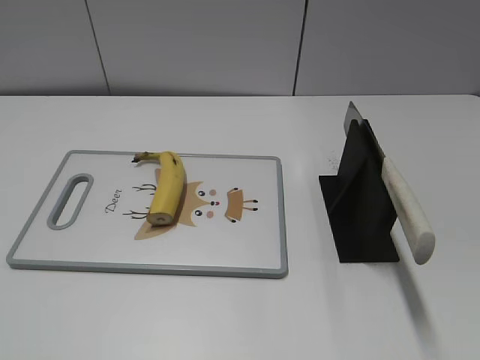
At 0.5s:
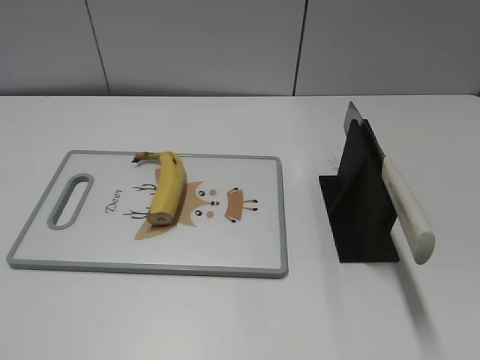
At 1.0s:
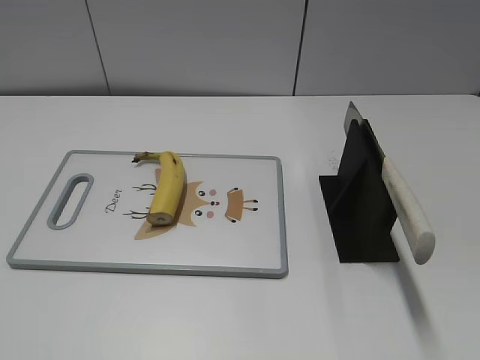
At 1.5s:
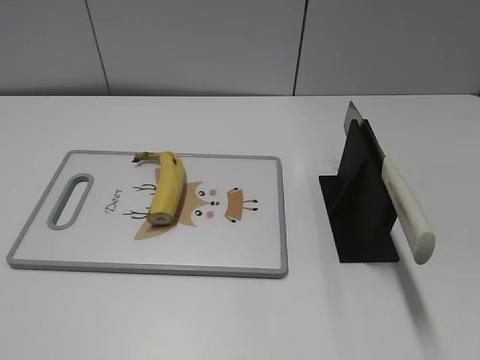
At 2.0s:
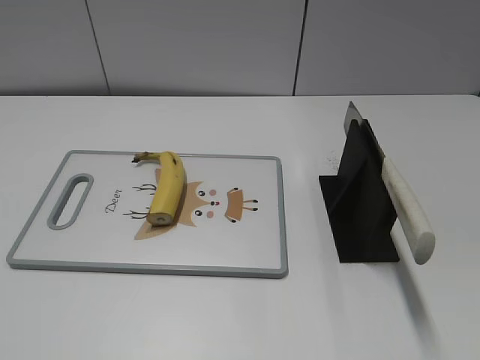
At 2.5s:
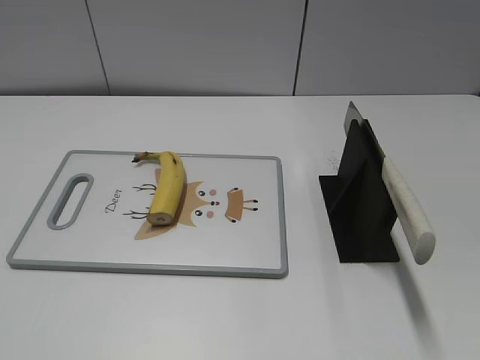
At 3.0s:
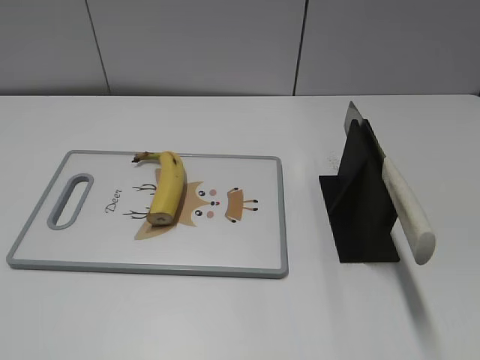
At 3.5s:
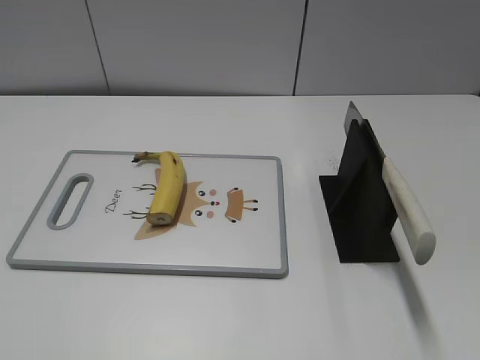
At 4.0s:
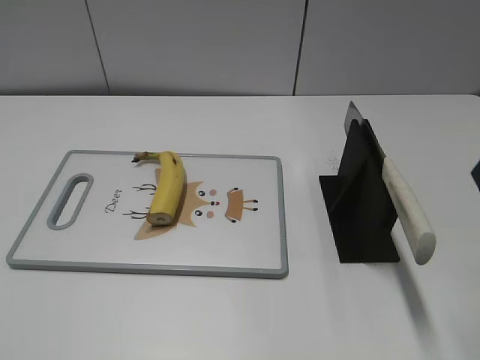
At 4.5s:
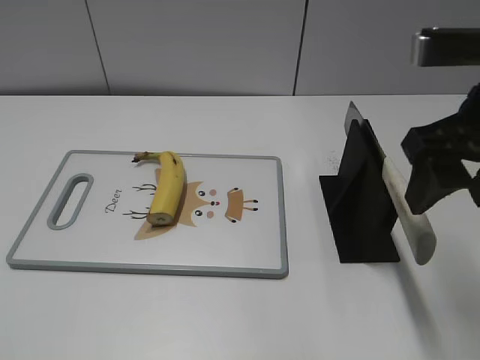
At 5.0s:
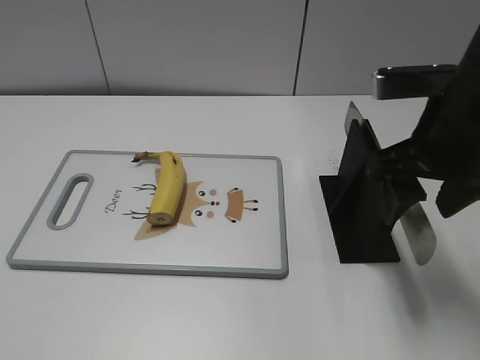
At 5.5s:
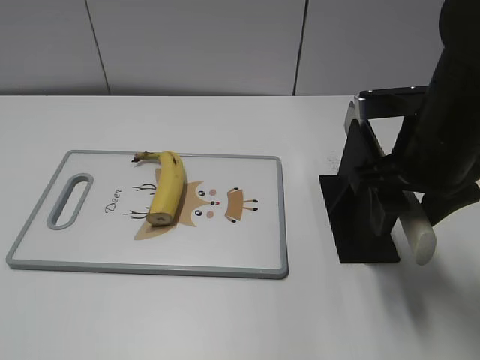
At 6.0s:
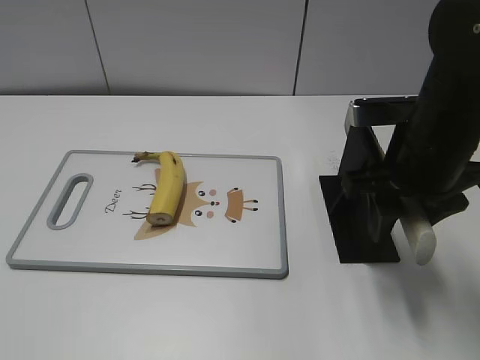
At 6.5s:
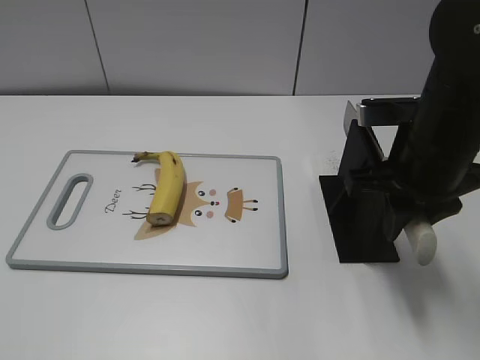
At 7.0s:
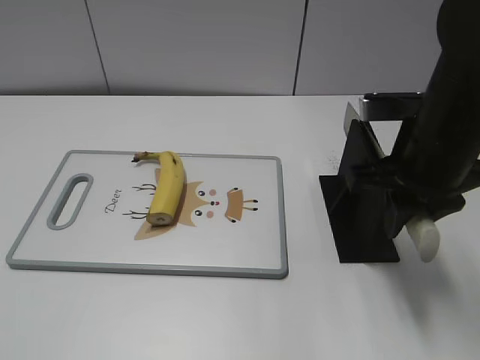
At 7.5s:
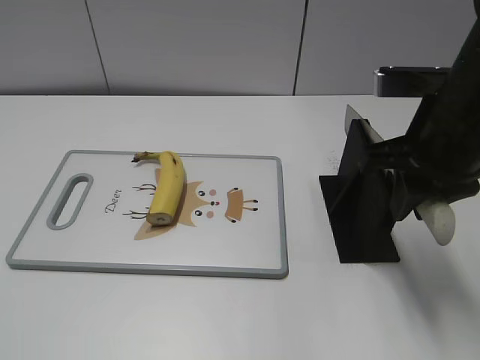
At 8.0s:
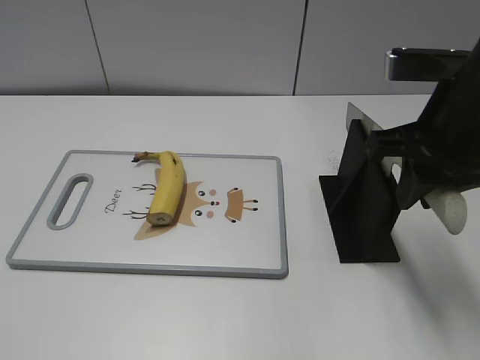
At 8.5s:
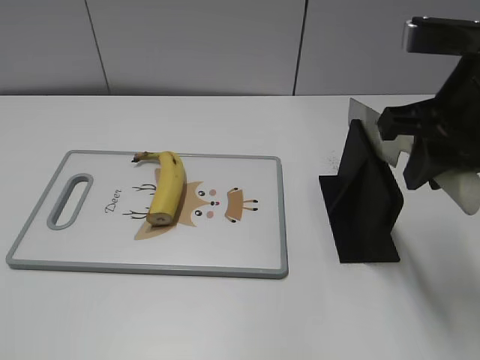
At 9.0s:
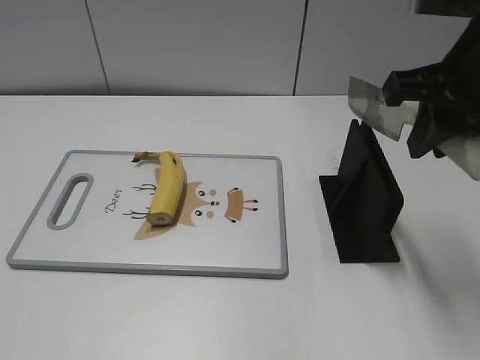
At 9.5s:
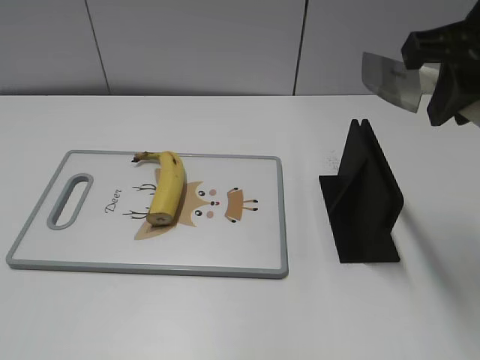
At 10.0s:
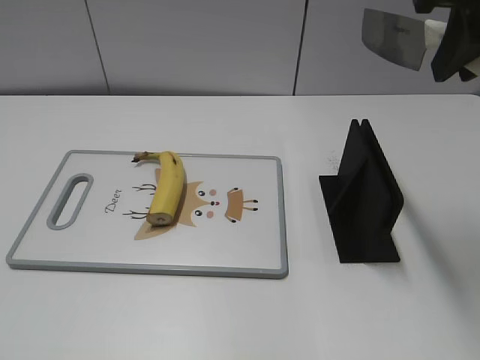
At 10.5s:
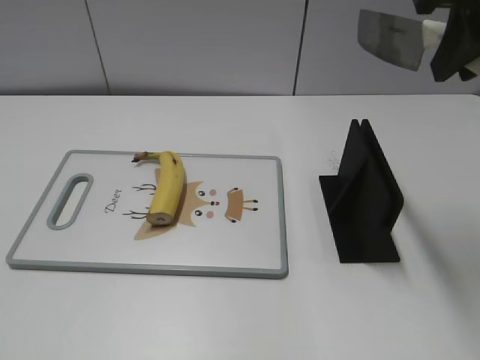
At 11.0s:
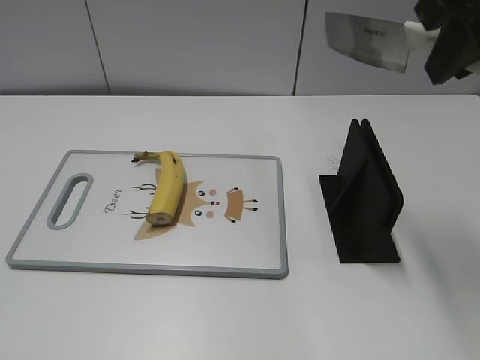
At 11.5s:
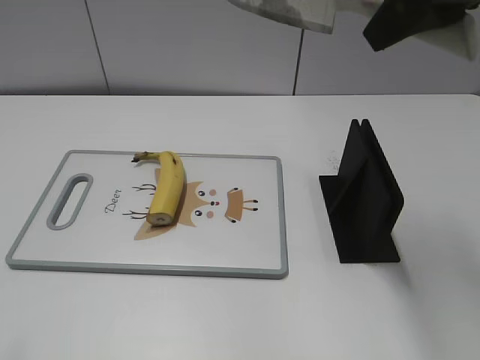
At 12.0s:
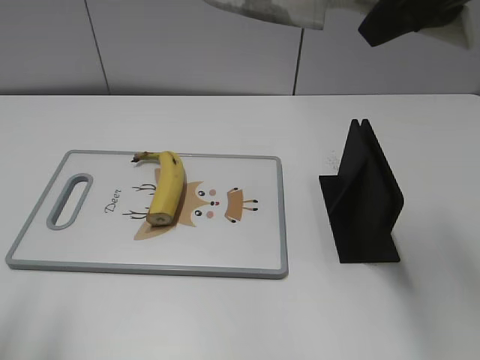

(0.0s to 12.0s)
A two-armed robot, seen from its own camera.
Task of the whole recording: cut banana.
Step, 0.0s - 8.0s: Grab the knife handle with your right hand.
4.0s - 6.0s: The right gripper is displaced downward, forward and to the left by approximately 15 cm, and closes up.
6.0s - 8.0s: The right gripper changes place by roughly 5 cm, and closes its fingers.
8.0s - 10.0s: The right gripper heads upward, covering approximately 10 cm.
10.0s - 12.0s: The left gripper heads forward and upward, covering approximately 15 cm.

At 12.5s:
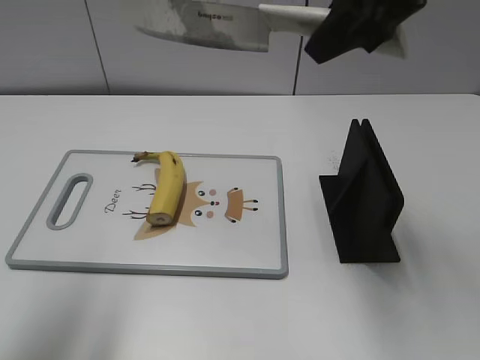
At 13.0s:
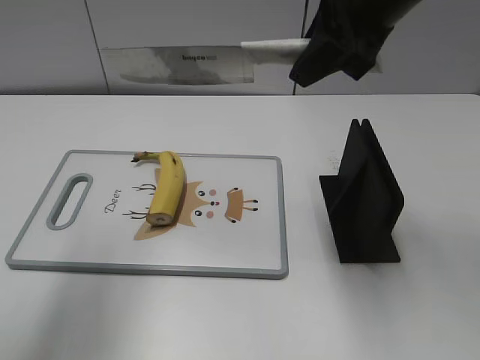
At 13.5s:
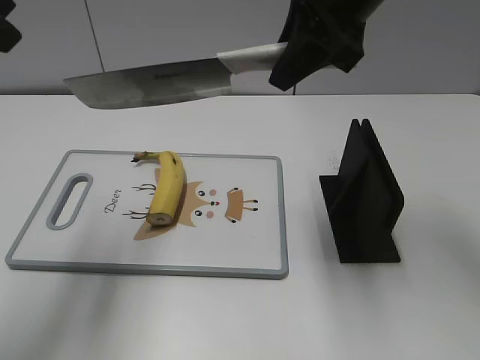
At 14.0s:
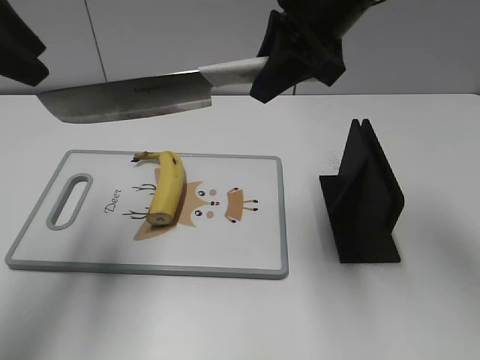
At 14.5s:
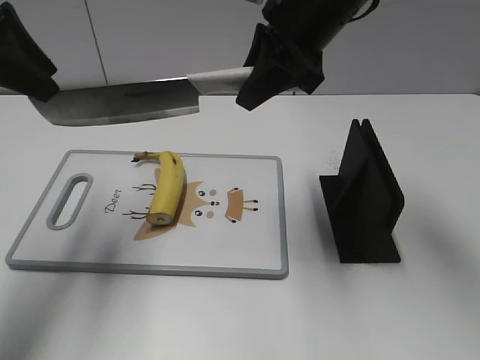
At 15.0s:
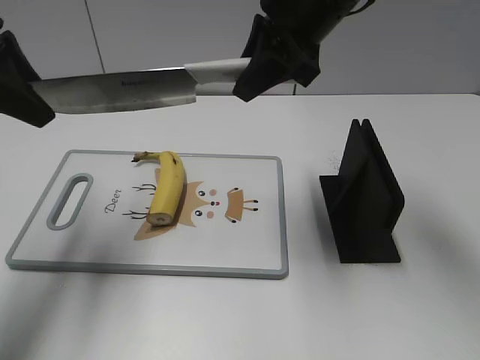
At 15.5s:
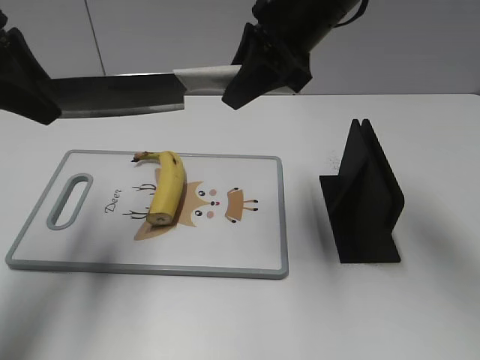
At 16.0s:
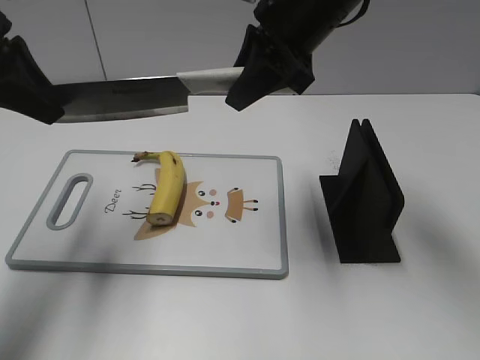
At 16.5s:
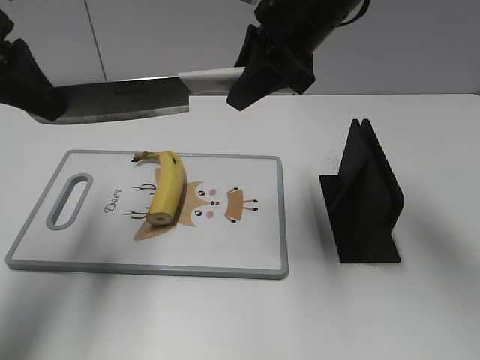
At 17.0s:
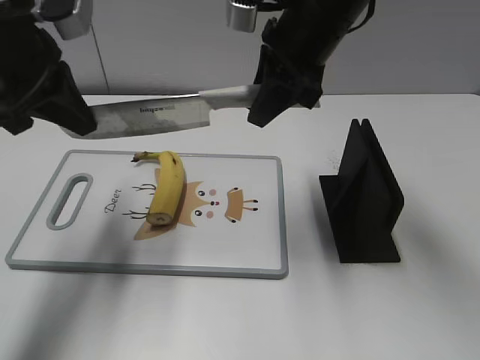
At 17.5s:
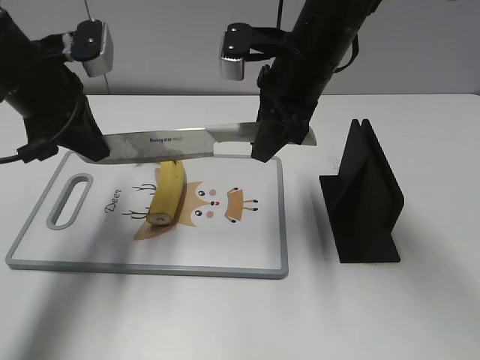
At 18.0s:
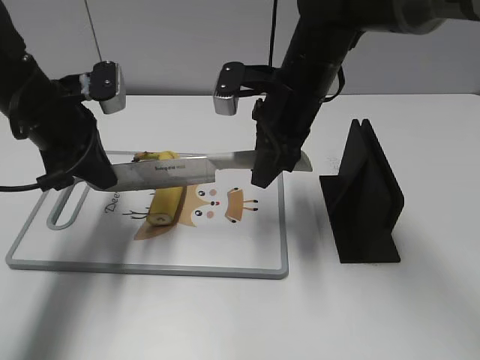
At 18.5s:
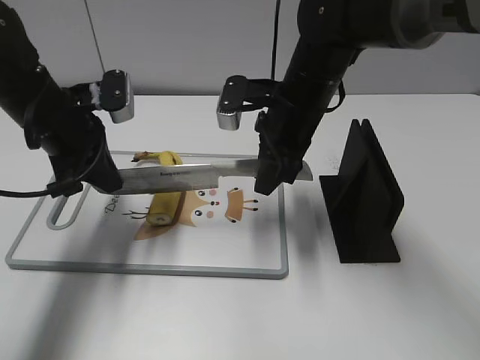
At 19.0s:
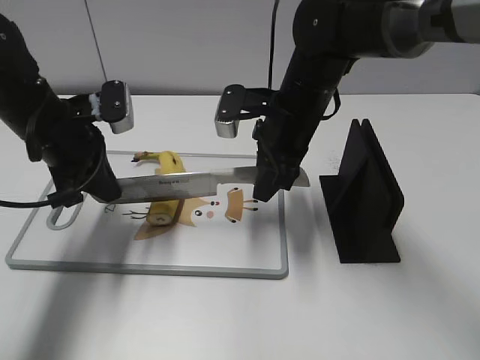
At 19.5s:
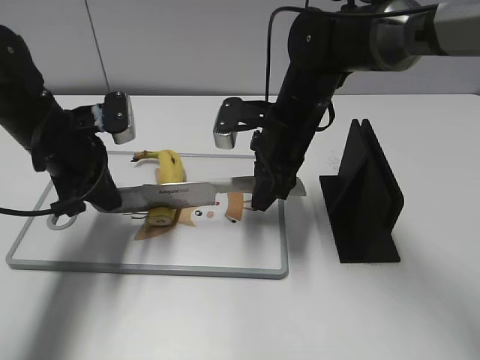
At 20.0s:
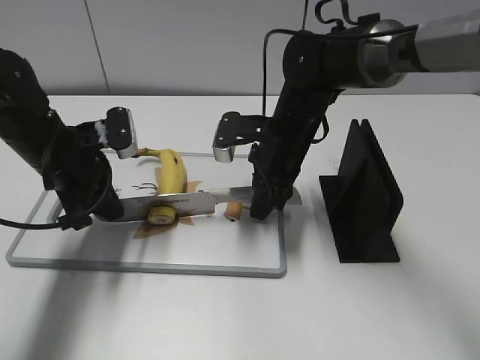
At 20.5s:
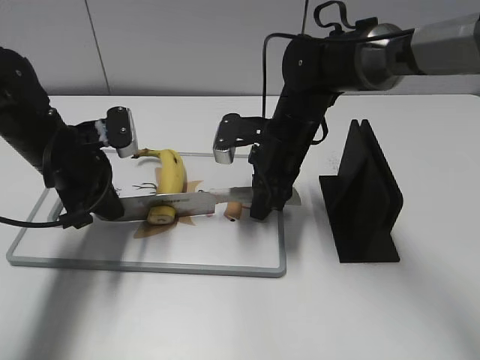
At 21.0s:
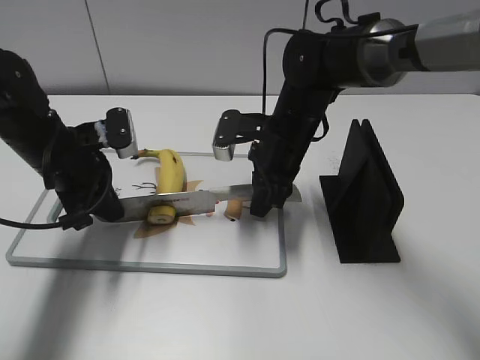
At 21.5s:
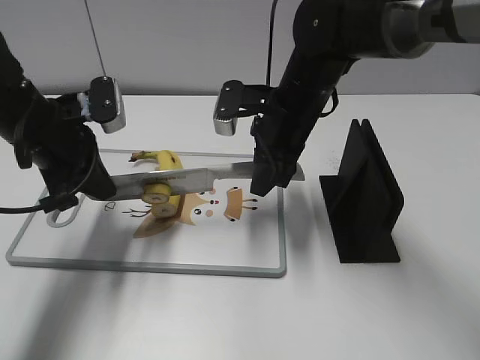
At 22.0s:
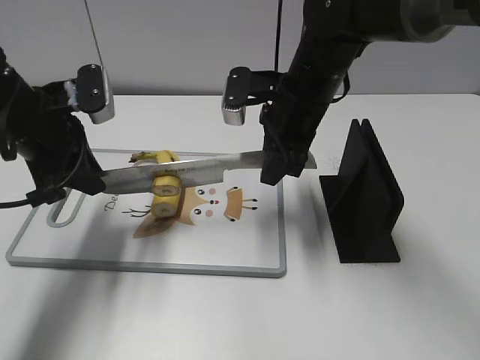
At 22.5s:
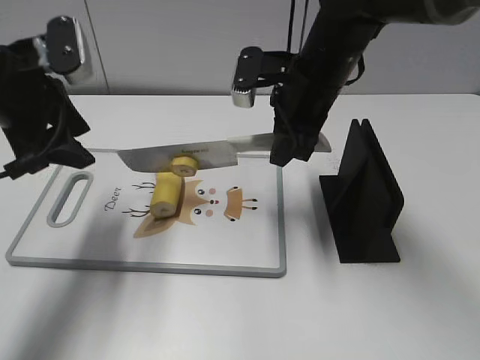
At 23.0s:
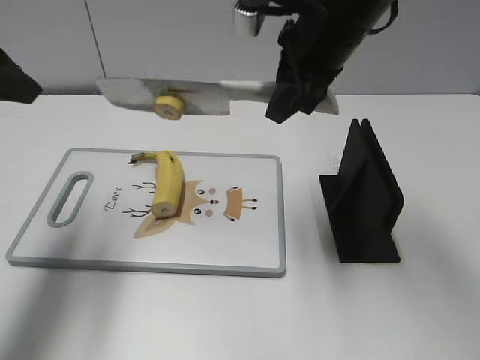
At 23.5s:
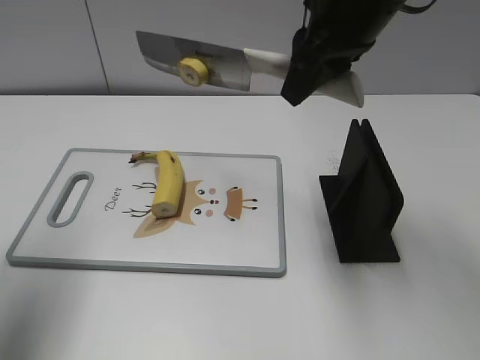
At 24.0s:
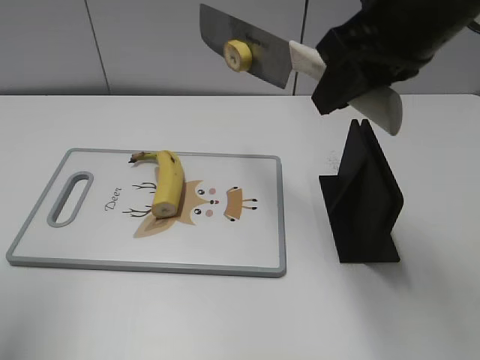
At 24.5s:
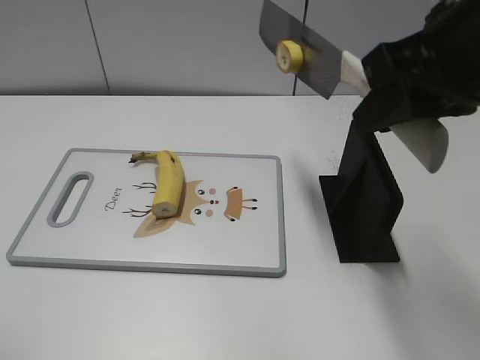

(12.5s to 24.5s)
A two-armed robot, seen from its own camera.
Task of the whole recording: cut banana.
Step, 12.5s - 20.5s: Lift the knife with your right hand.
12.5s - 14.5s: The right gripper moves downward, forward and to the left, some 10 cm, while the left gripper shifts about 15 cm forward.
14.5s - 16.5s: The left gripper closes.
16.5s - 18.5s: The two grippers go about 10 cm downward.
18.5s - 20.5s: Both grippers move downward, about 5 cm.
20.5s - 22.5s: Both grippers move upward, roughly 10 cm. The left gripper opens up.
22.5s - 24.5s: The right gripper is displaced backward, upward and to the right by approximately 20 cm. The left gripper travels backward and upward by some 25 cm.

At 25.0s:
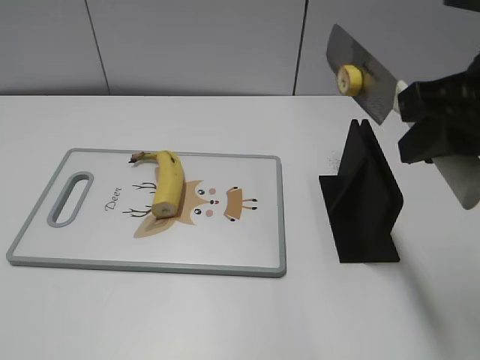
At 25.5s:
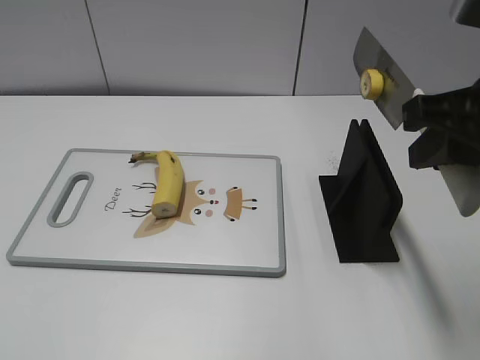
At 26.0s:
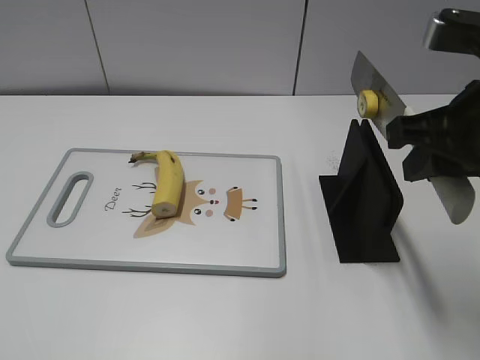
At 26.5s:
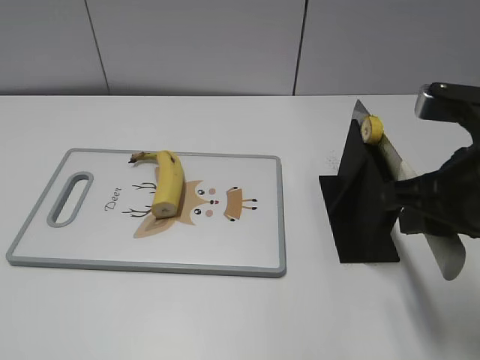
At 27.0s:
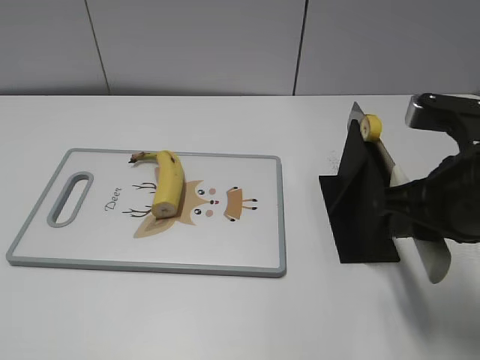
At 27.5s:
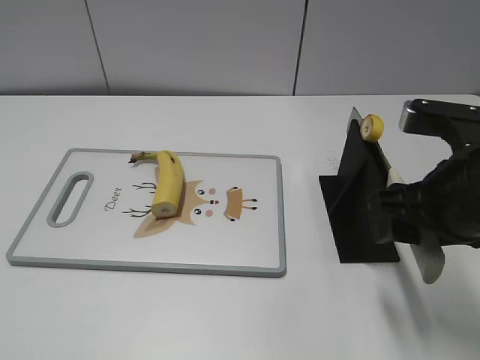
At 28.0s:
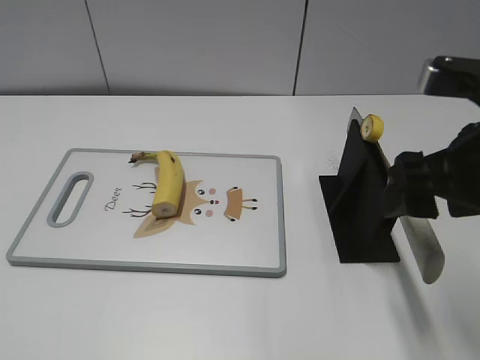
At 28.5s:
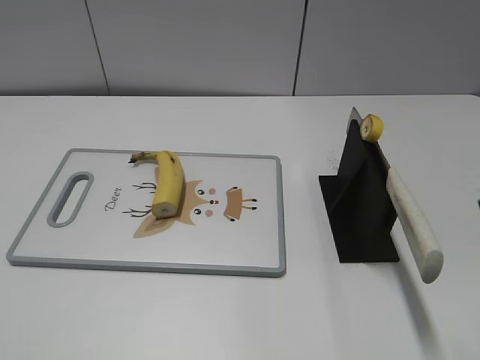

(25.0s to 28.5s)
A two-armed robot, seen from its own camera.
Task of the whole recording: cut banana.
Step, 25.5s - 27.0s: Lift the knife with your right hand.
25.0s - 27.0s: The right gripper shifts about 10 cm downward.
27.0s - 28.5s: The right gripper moves upward and backward, some 15 cm, and opens its fingers.
